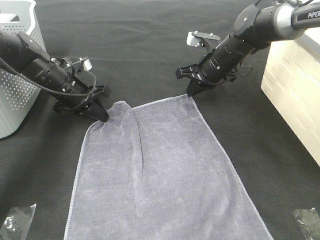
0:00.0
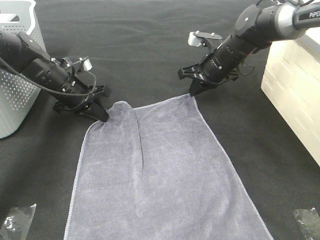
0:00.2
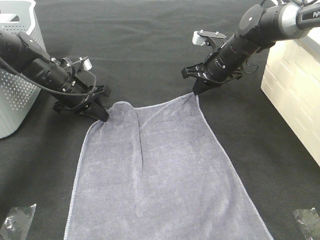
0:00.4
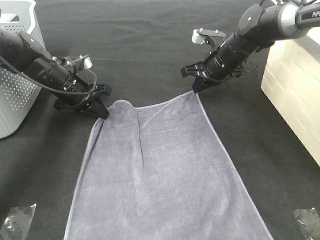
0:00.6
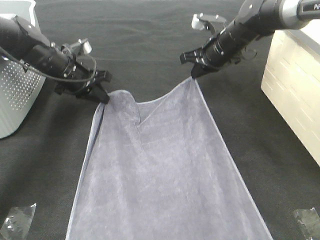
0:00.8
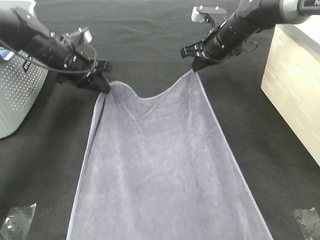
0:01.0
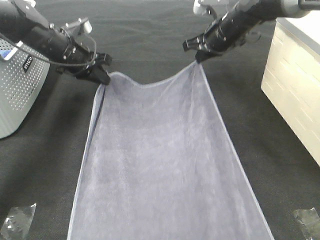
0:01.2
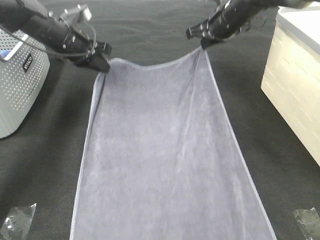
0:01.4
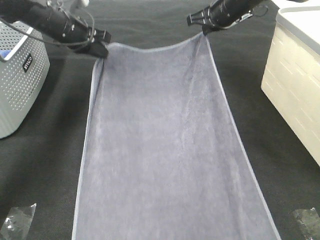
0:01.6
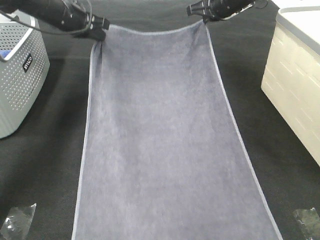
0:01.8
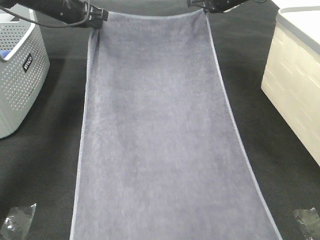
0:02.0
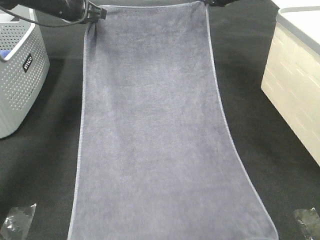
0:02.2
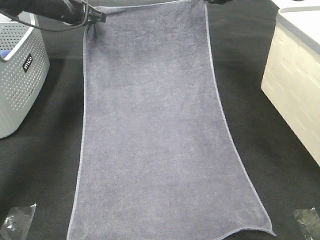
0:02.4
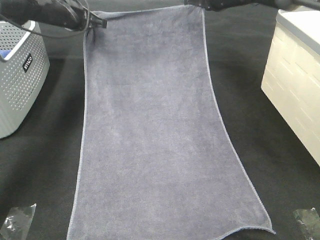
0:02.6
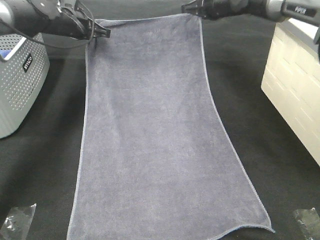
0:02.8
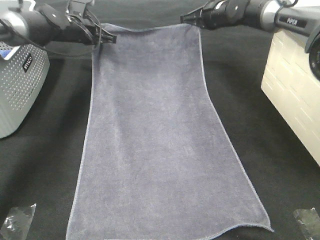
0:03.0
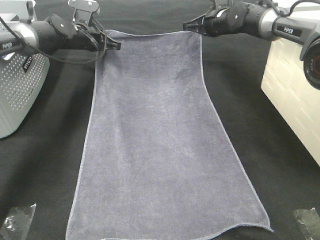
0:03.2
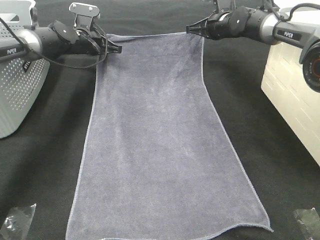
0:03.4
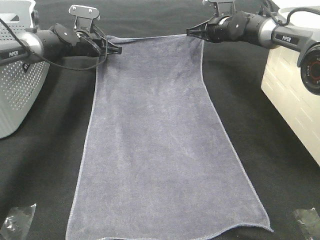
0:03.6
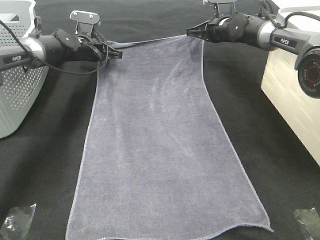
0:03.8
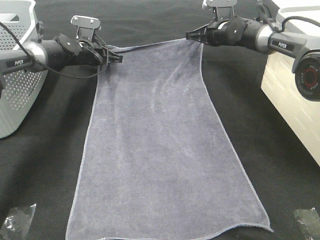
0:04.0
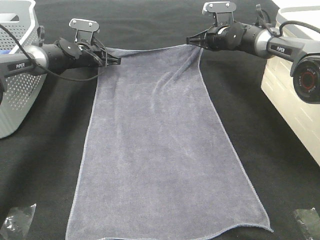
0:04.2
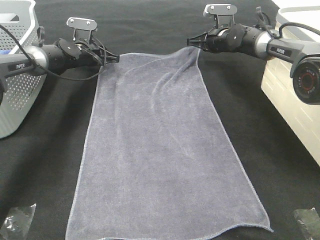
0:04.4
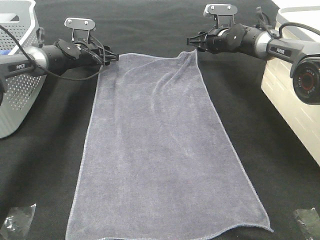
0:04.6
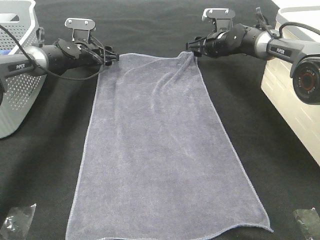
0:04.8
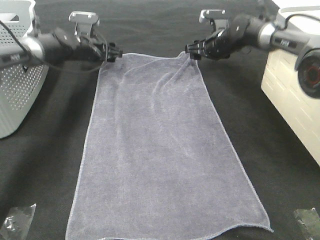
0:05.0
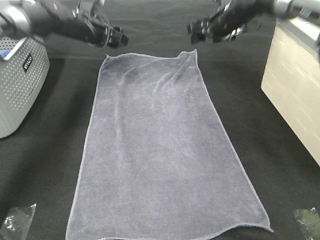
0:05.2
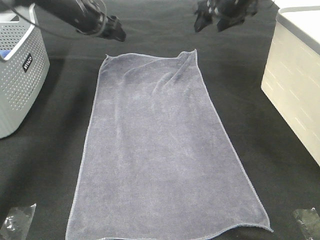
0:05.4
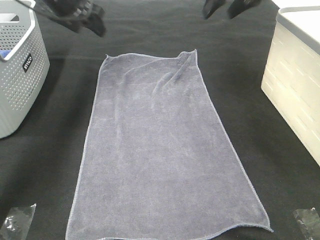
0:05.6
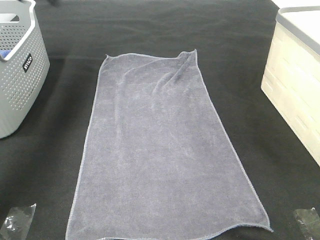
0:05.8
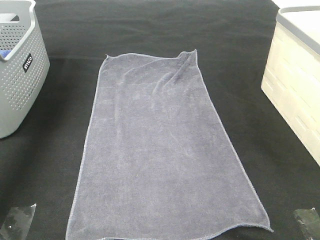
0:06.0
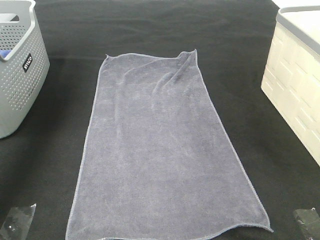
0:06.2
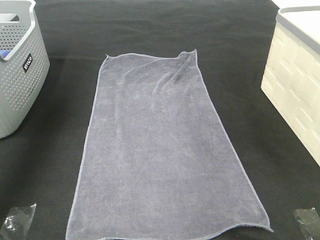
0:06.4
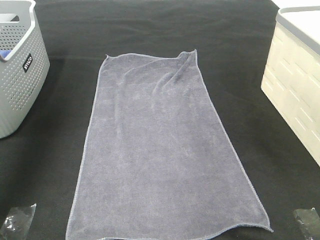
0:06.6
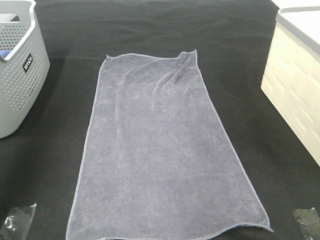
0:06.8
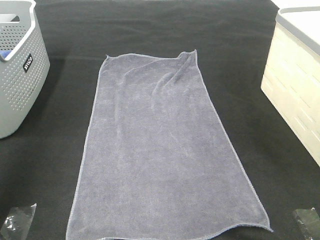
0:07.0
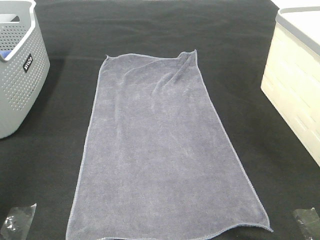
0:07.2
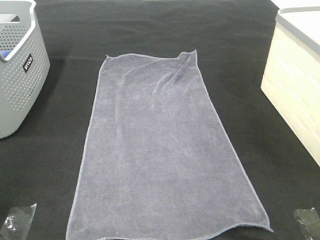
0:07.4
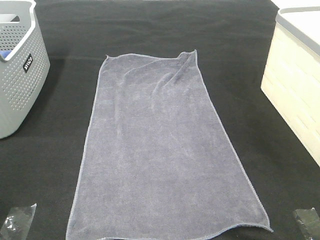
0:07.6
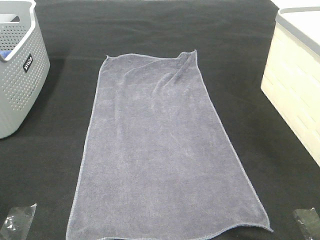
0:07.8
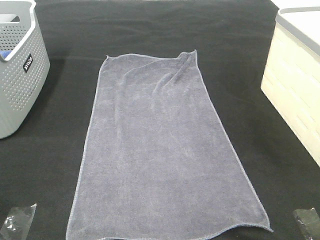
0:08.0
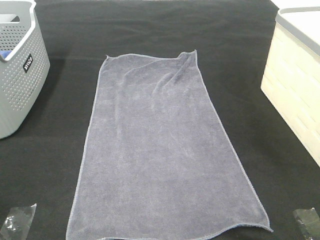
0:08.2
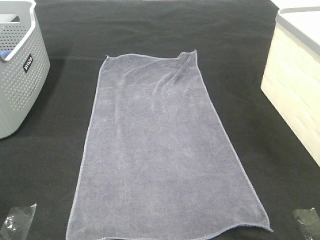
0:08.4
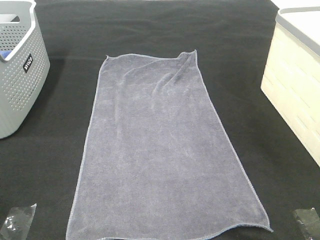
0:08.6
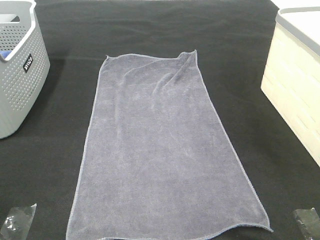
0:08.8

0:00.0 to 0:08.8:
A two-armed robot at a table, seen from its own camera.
Task of the whole recording: Remove the towel and place it.
0:00.0 to 0:01.4: The two grippers go approximately 10 cm upward and forward.
0:01.4 to 0:03.0: Both grippers move forward, some 5 cm.
0:03.0 to 0:04.4: Both grippers move downward, approximately 5 cm. The left gripper opens up.
0:04.4 to 0:05.8: The grippers both shift upward and backward by roughly 30 cm. The right gripper opens up.
0:05.8 to 0:07.4: The left gripper goes some 40 cm backward.

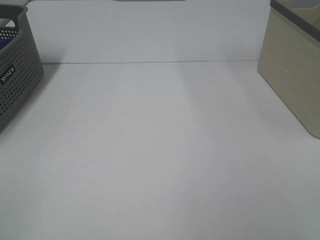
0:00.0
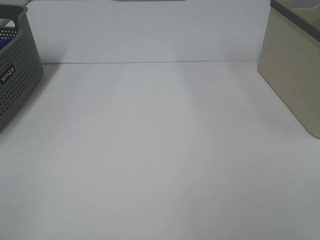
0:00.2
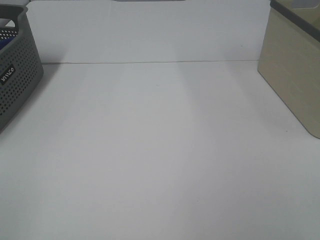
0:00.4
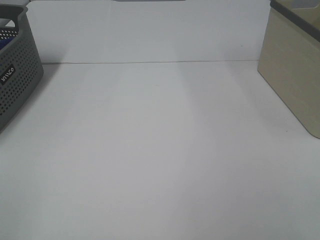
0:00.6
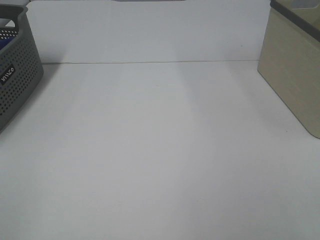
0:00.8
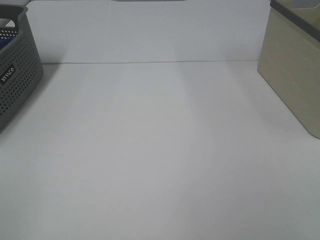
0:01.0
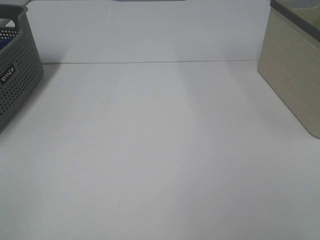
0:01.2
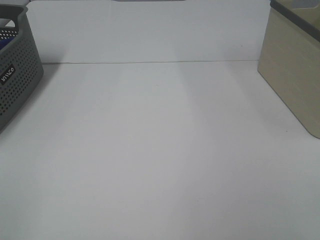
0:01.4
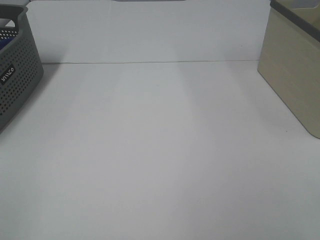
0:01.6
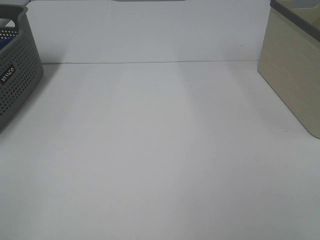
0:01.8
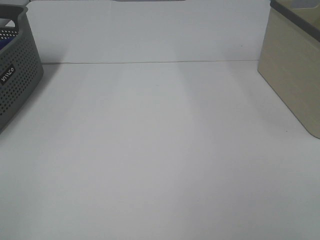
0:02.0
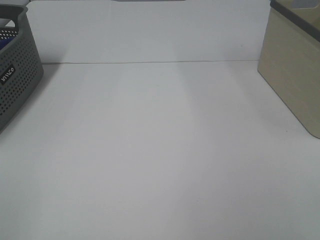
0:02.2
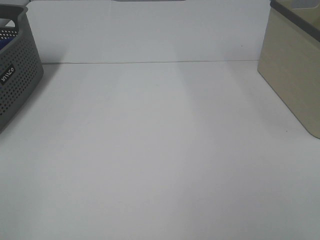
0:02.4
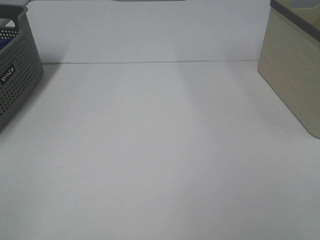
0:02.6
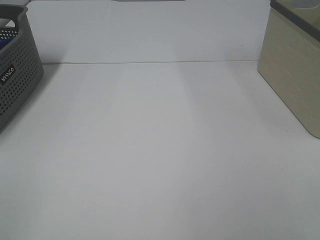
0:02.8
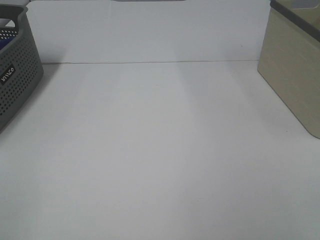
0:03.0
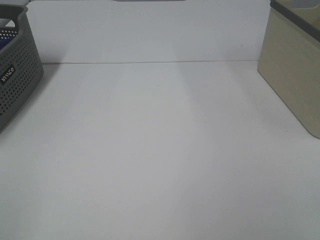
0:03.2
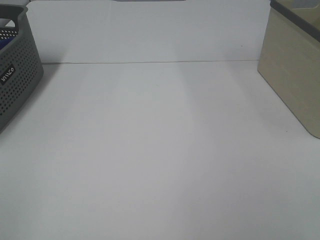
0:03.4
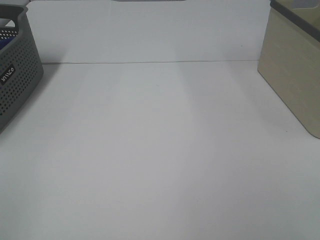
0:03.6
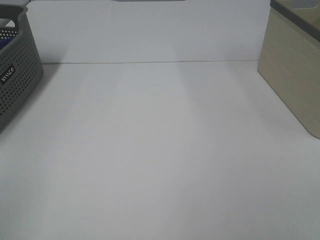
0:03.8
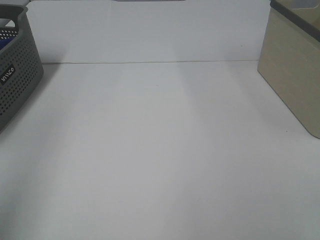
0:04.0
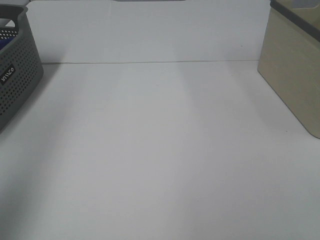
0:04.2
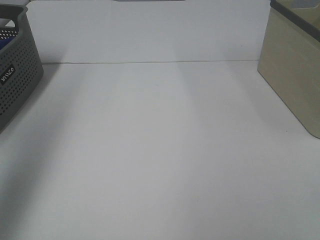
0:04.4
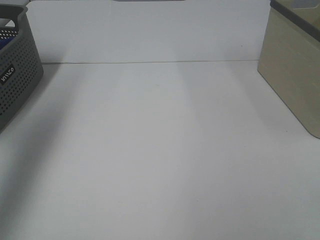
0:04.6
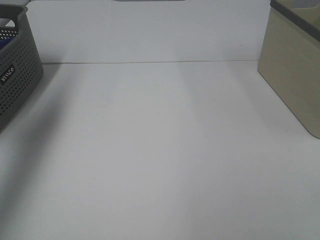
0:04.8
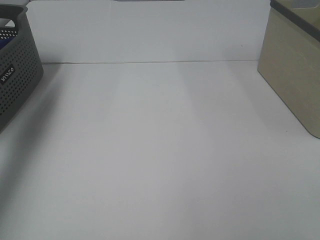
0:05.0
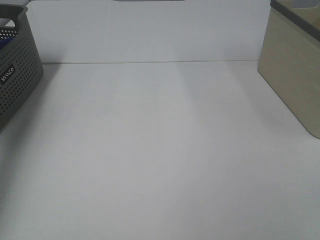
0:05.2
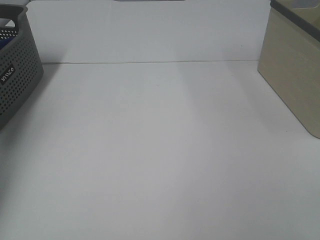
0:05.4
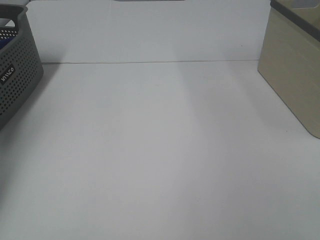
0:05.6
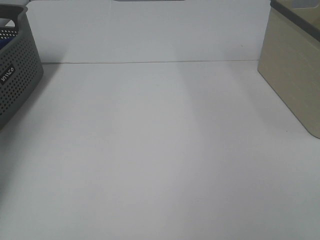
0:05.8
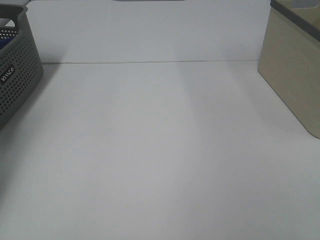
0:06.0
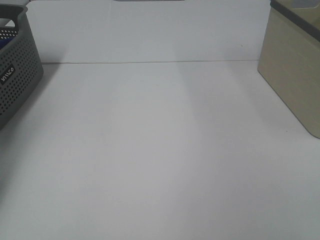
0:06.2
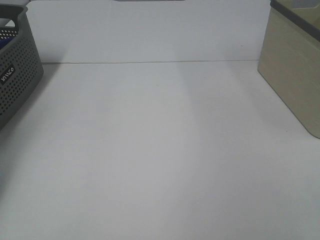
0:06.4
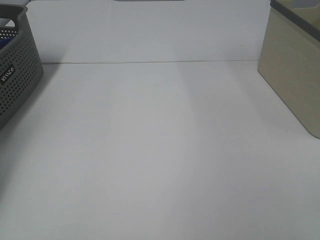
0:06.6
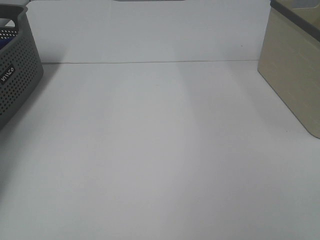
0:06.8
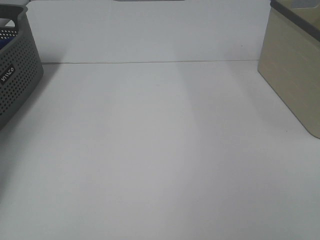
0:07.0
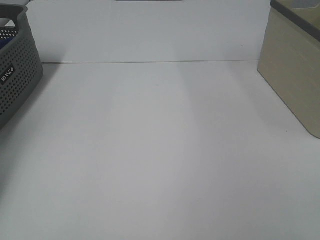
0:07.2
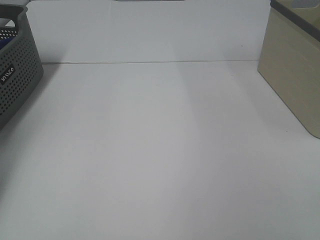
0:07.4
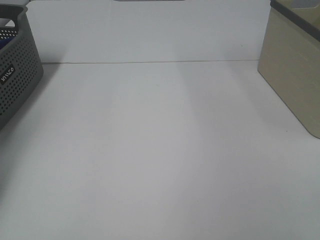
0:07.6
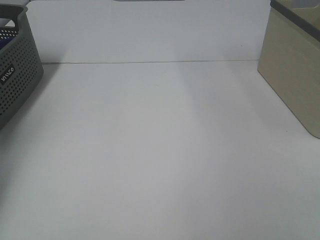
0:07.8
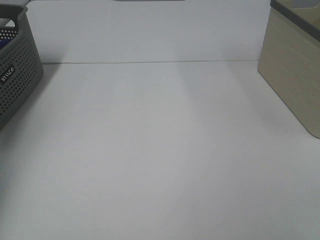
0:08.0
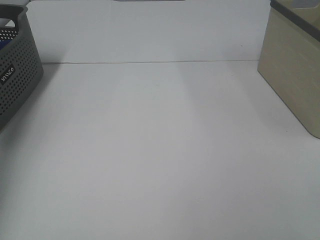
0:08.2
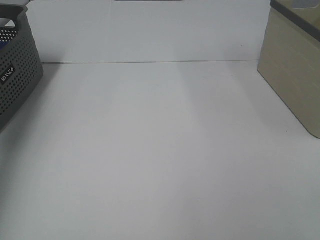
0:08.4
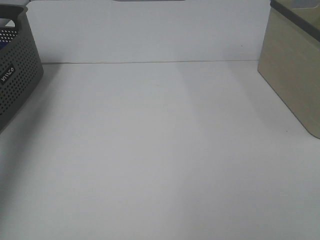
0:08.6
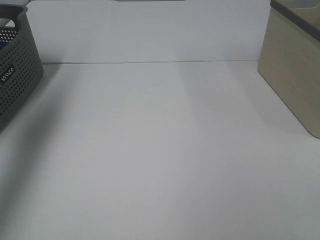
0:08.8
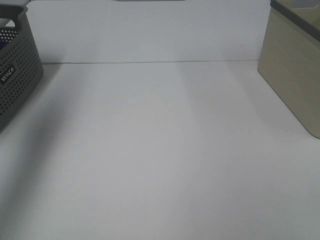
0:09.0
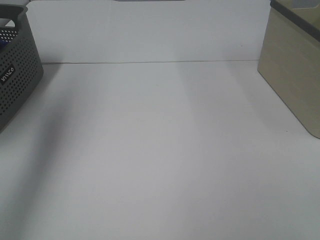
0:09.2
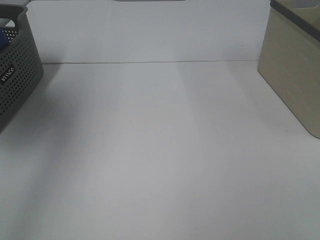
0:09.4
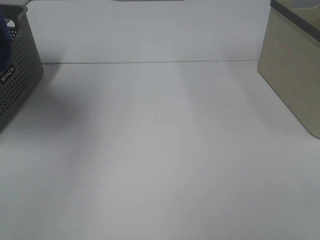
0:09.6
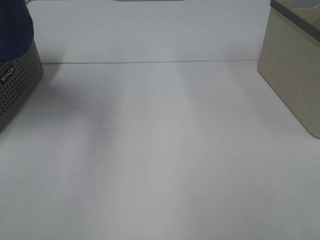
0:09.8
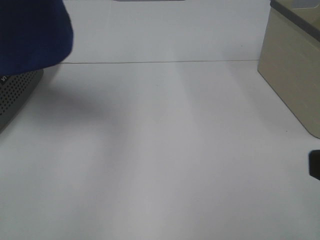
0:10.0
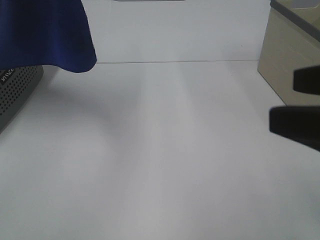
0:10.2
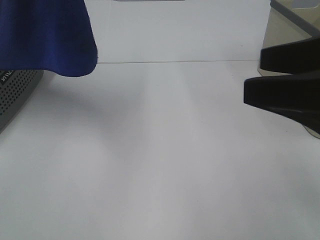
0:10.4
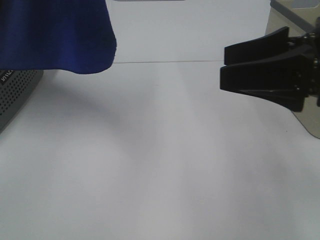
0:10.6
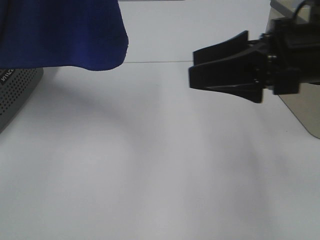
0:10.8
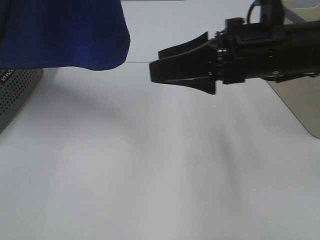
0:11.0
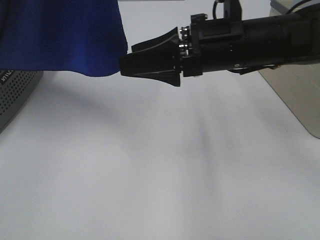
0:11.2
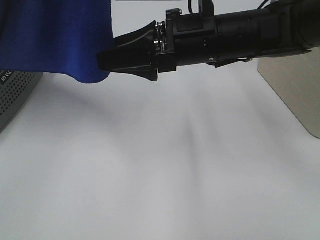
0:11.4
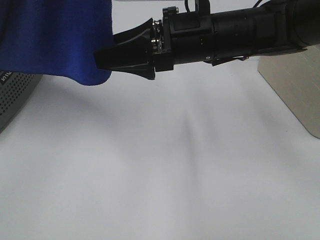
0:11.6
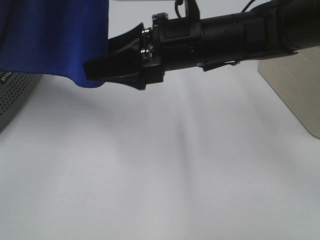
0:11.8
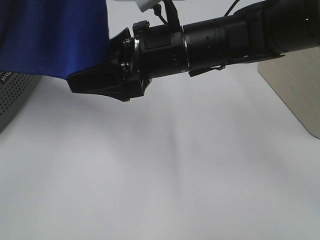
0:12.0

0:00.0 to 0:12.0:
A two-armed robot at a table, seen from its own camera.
Task of the whole recording: Remove the towel and place it.
0:00.0 to 0:03.0: Neither gripper changes place.
0:03.0 to 0:04.4: The left gripper shifts about 30 cm forward and upward.
0:04.4 to 0:06.0: The left gripper is displaced forward, downward and to the left by about 35 cm.
0:07.6 to 0:09.0: The left gripper goes some 35 cm upward, backward and to the right.
0:09.0 to 0:10.4: The left gripper heads to the right, covering some 15 cm. Meanwhile the right gripper is displaced forward by approximately 15 cm.
0:10.4 to 0:12.0: The right gripper is displaced to the left and forward by about 25 cm.

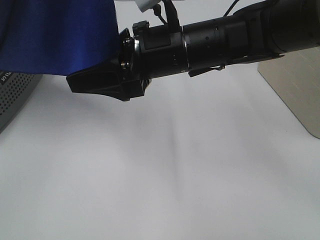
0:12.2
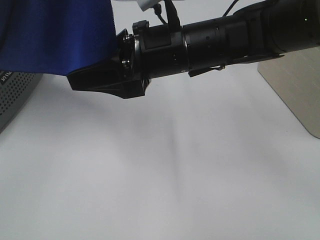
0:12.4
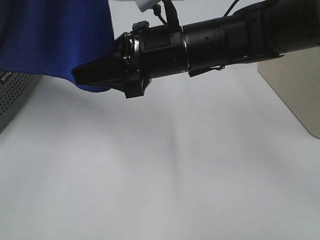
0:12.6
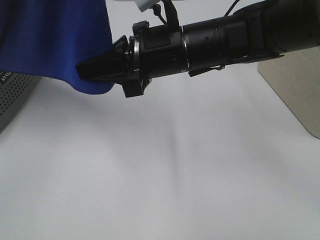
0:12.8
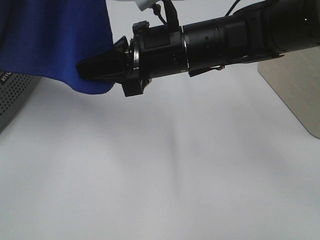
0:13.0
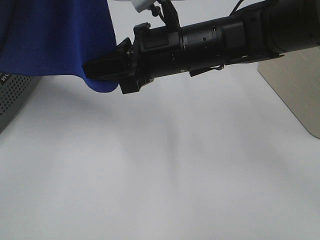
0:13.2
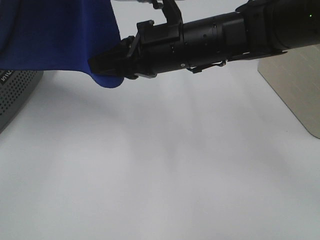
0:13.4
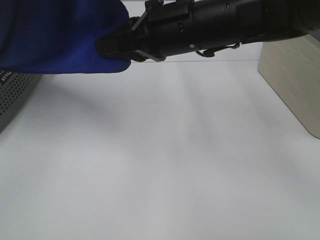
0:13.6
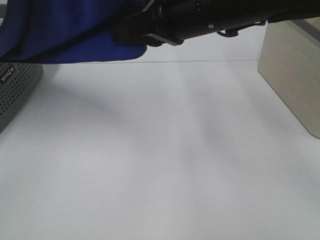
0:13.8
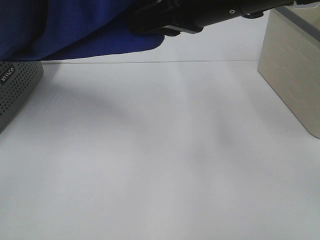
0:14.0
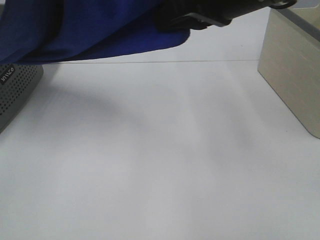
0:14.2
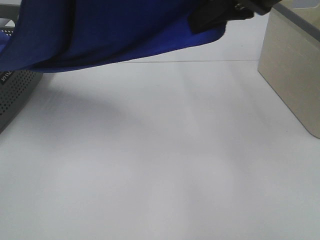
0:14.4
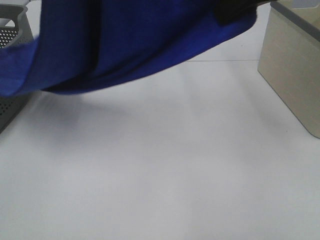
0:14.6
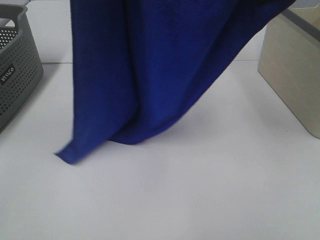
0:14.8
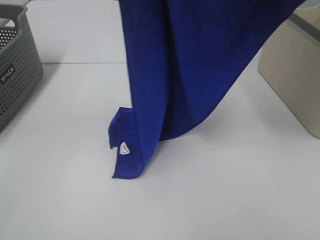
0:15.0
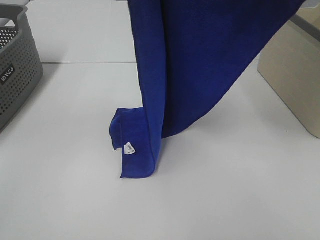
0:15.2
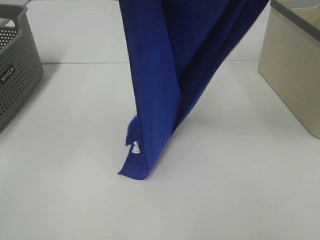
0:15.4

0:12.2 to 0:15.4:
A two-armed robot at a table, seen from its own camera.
Task of the whole recording: Remove the towel and place it.
0:12.2 to 0:13.8: The right gripper is displaced upward by about 5 cm, and closes.
0:13.8 to 0:15.4: The left gripper moves some 5 cm; the right gripper heads upward and to the right, covering about 20 cm.
